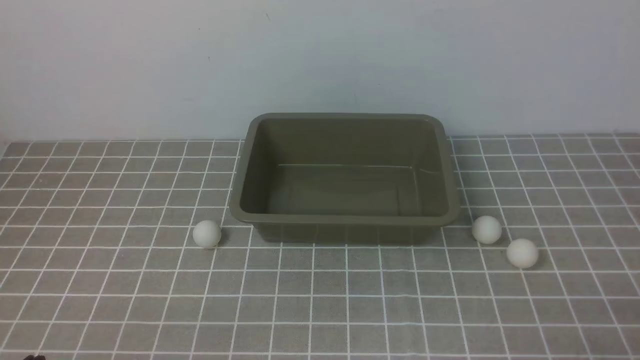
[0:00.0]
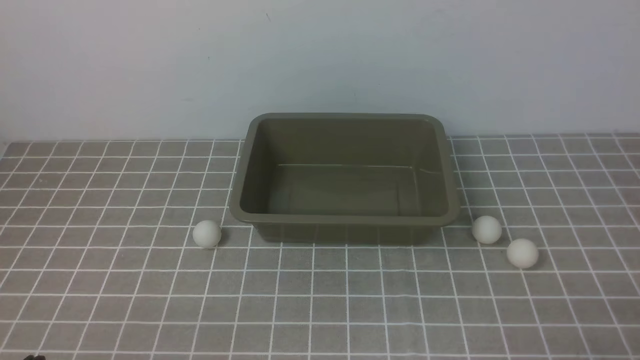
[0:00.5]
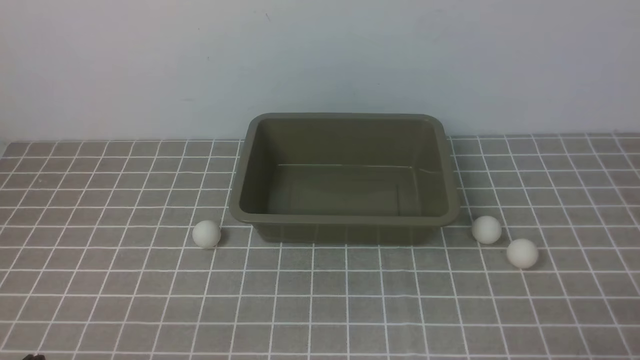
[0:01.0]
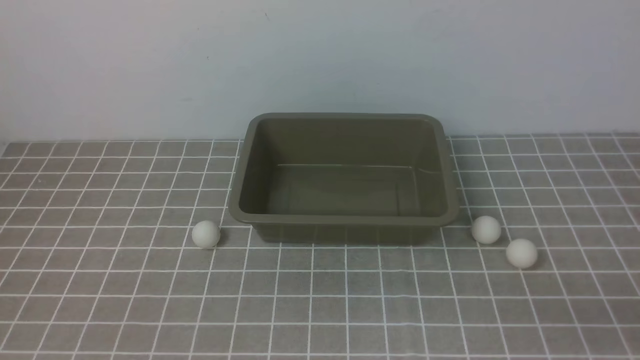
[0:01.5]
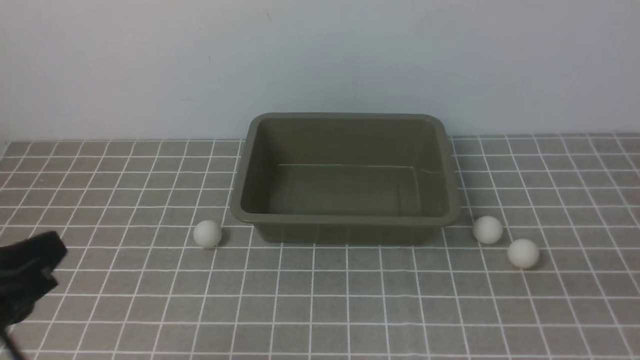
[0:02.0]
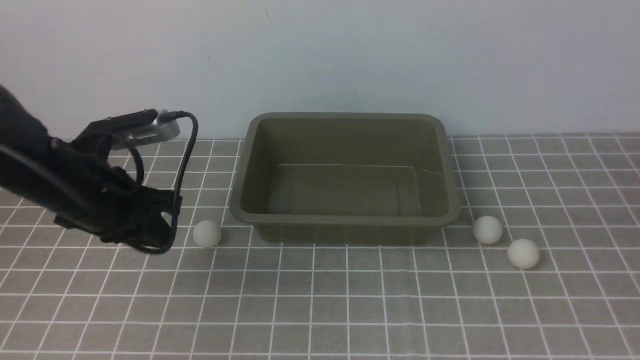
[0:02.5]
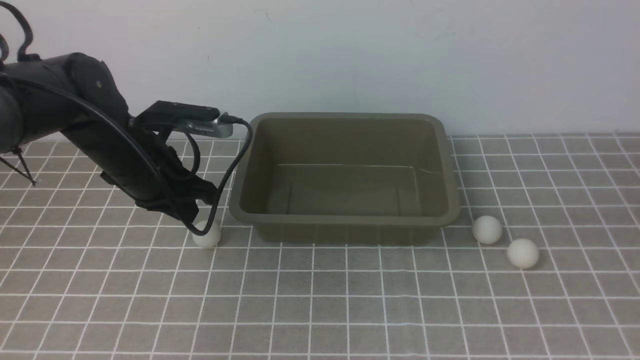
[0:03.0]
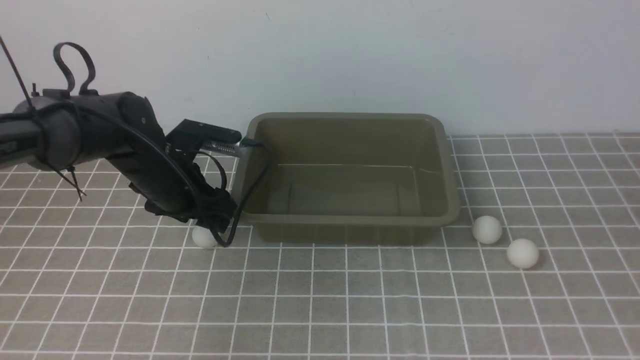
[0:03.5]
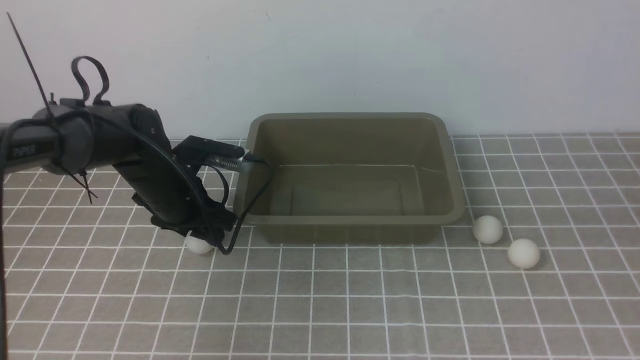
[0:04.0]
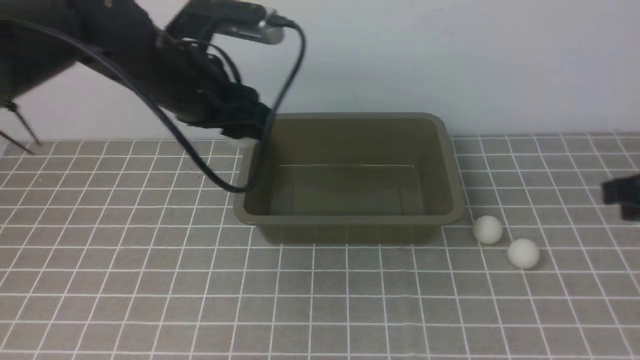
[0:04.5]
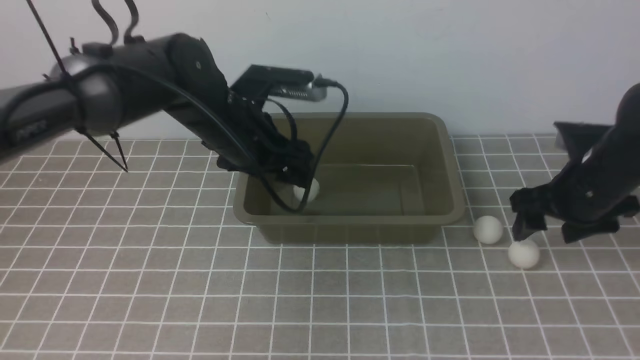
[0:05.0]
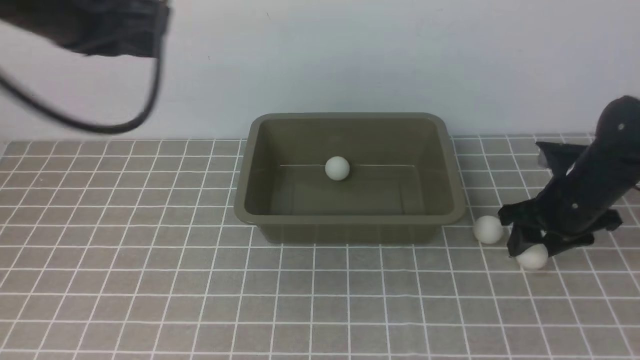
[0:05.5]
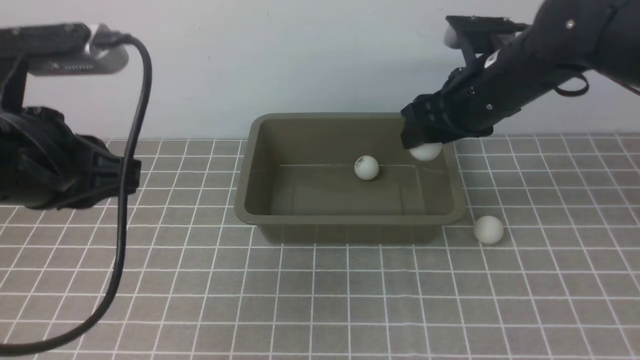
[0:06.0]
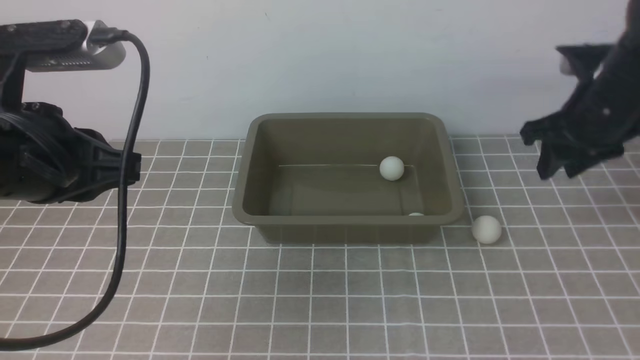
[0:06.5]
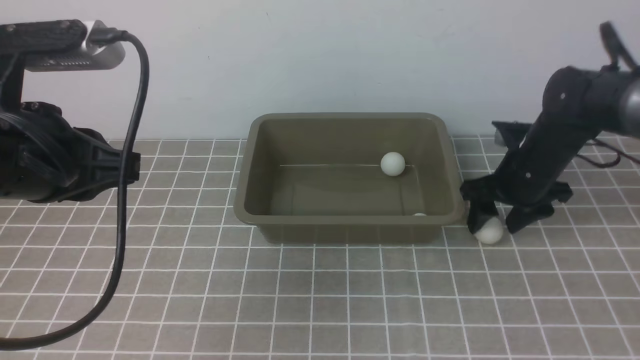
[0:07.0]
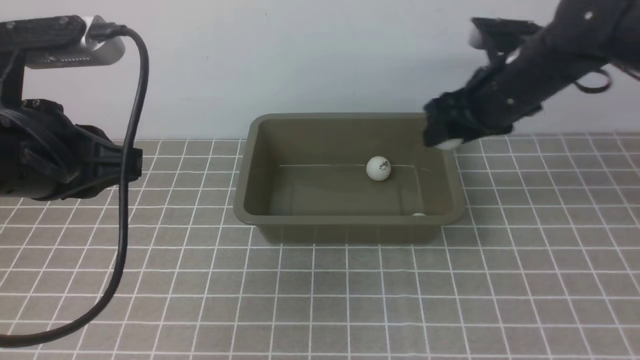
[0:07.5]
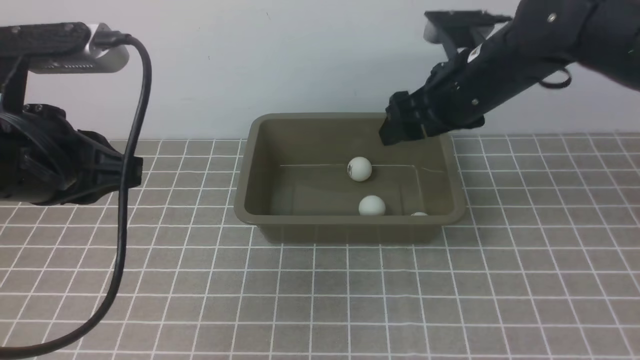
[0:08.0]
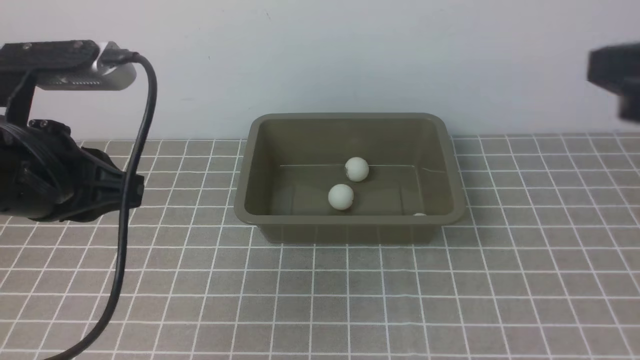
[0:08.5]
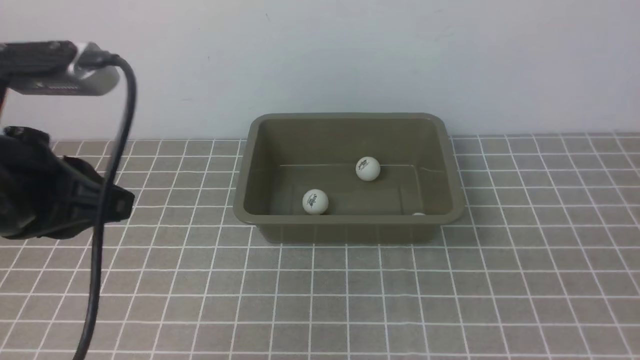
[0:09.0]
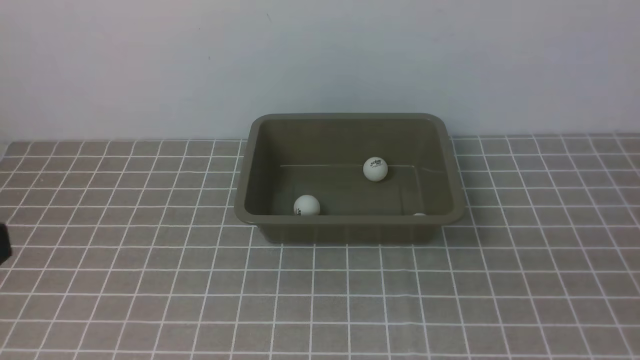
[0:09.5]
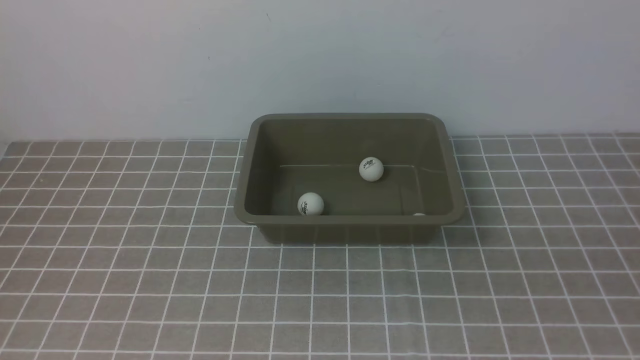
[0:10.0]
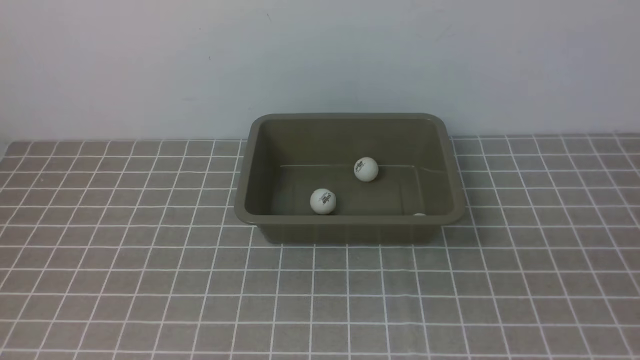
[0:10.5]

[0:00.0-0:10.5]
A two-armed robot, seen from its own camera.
Step, 0:00.0 to 0:04.0: use the left arm to clamp the table tennis ball closest to it.
Step, 0:04.5 to 0:05.0: use the left arm to put the table tennis ball into the box.
Step, 0:06.5 to 0:07.0: use the right arm to clamp the table tennis ball closest to it.
Step, 0:07.5 to 0:08.0: use the right arm to put the table tennis ball into the box.
0:02.0 to 0:04.0: The right gripper heads upward and forward, covering approximately 10 cm, while the left gripper goes roughly 30 cm forward, and opens its fingers.
0:04.0 to 0:06.5: The right gripper shifts about 25 cm forward, and opens up. Meanwhile the left gripper is displaced upward and backward by roughly 25 cm, and closes up.
0:06.5 to 0:08.5: The right gripper heads backward and upward, covering approximately 25 cm, and closes.
0:08.5 to 0:10.5: The left gripper shifts about 20 cm backward, while the right gripper moves backward and downward, some 20 cm.

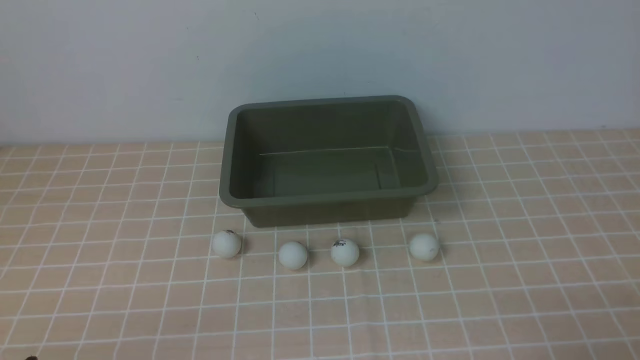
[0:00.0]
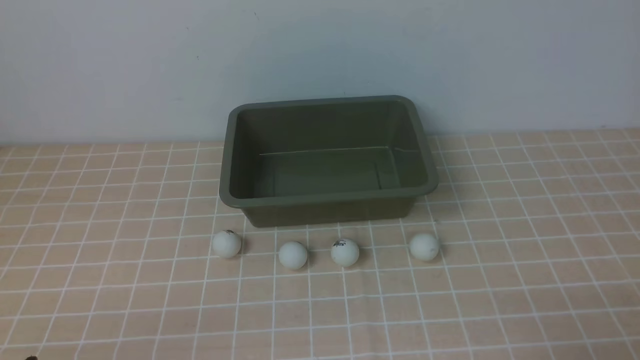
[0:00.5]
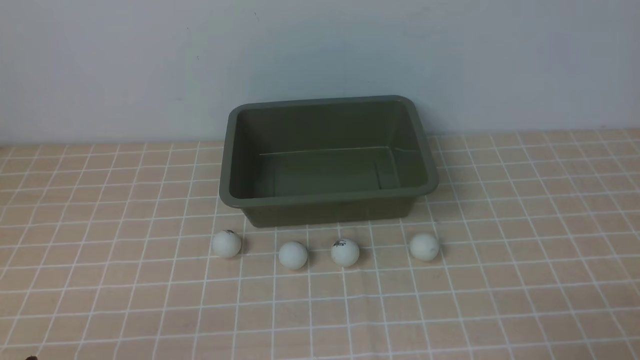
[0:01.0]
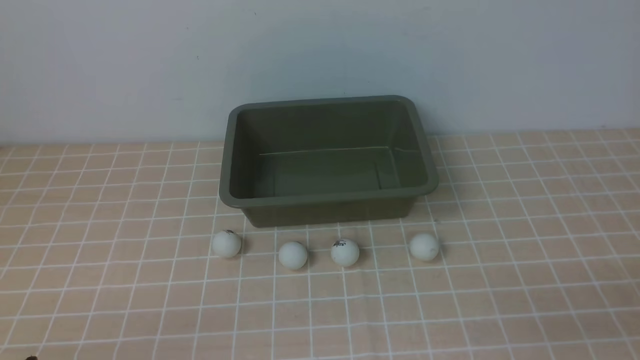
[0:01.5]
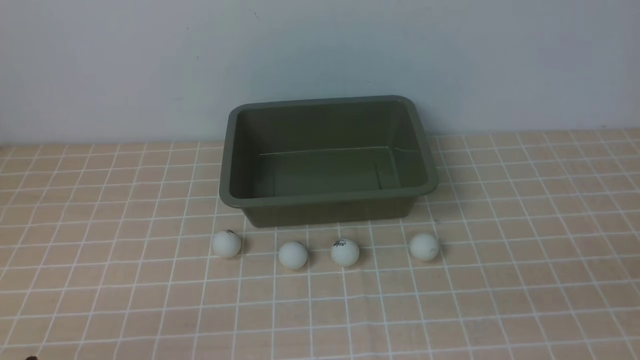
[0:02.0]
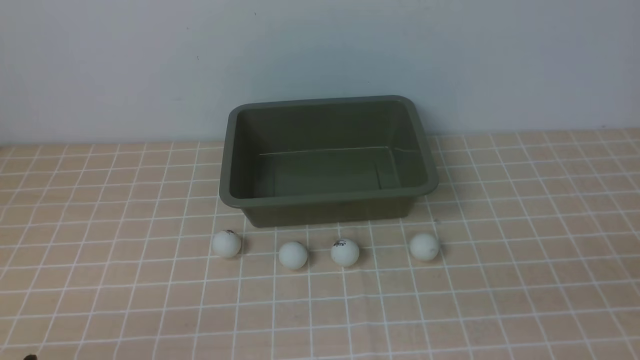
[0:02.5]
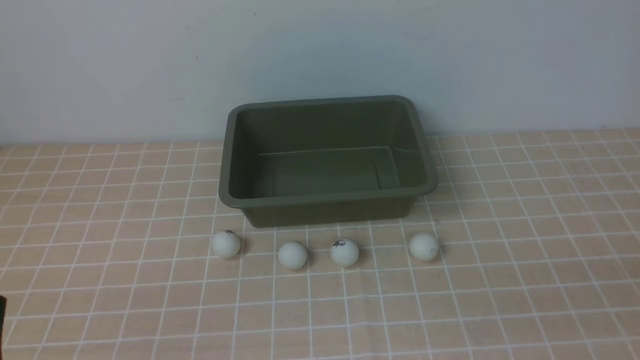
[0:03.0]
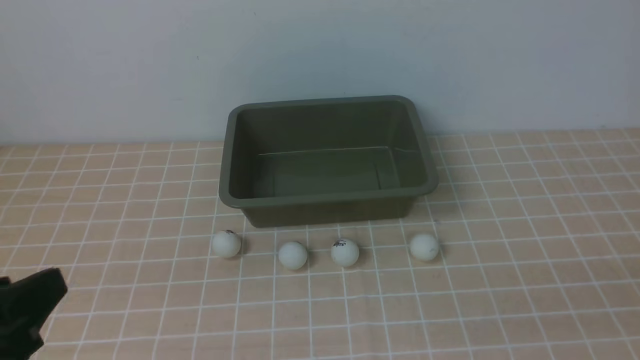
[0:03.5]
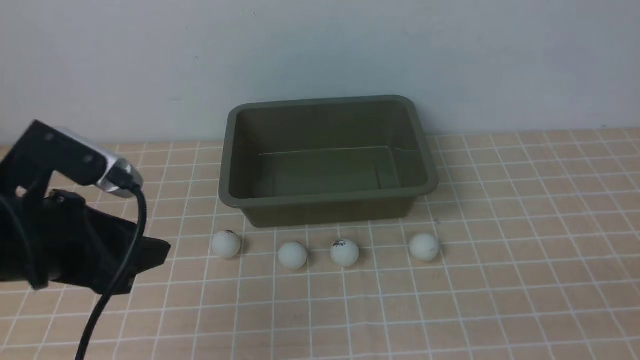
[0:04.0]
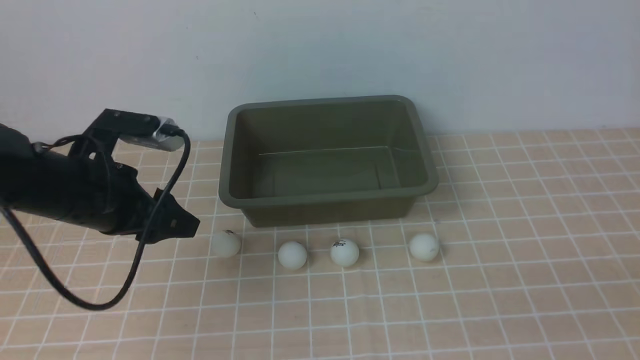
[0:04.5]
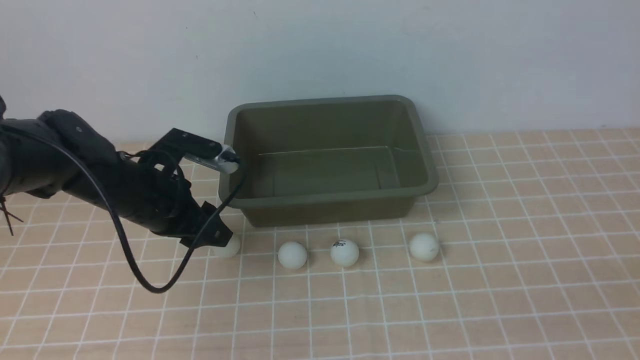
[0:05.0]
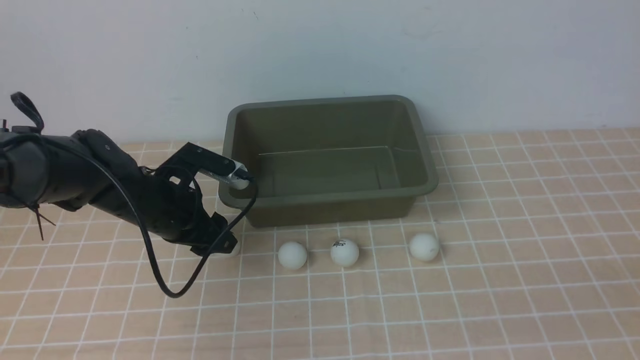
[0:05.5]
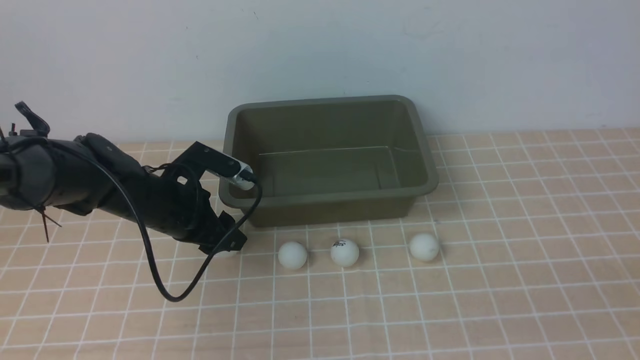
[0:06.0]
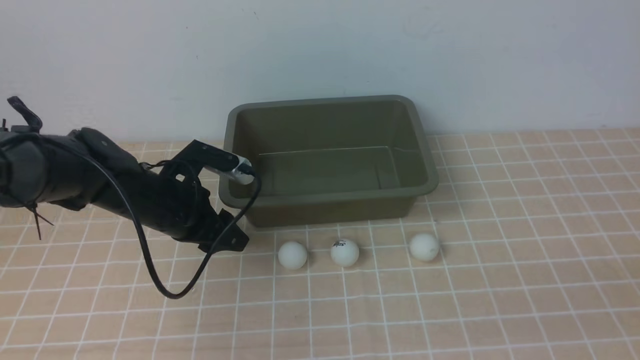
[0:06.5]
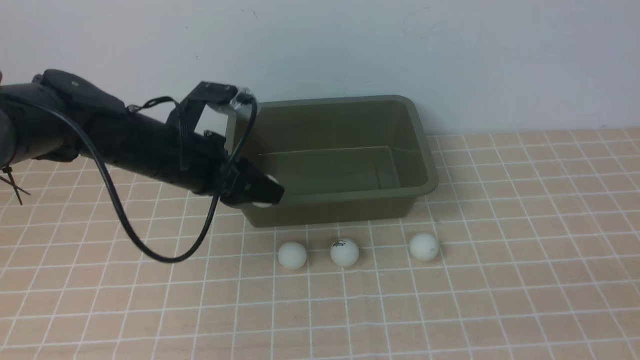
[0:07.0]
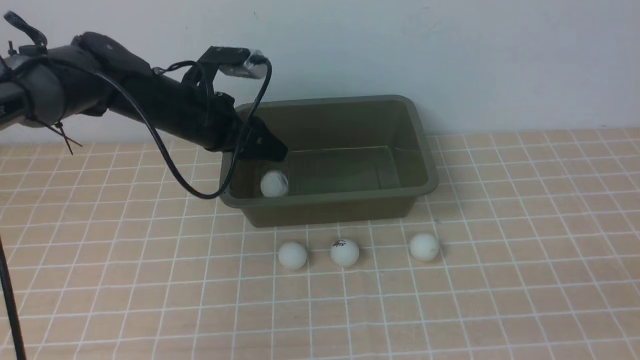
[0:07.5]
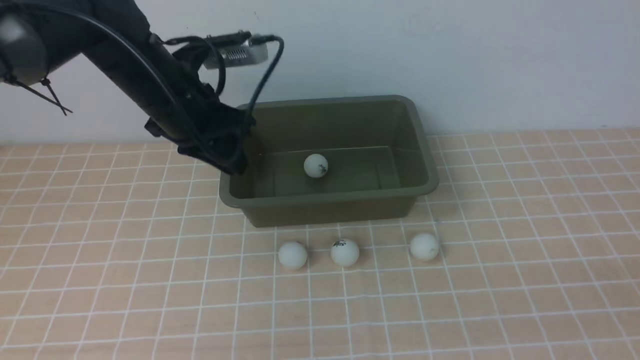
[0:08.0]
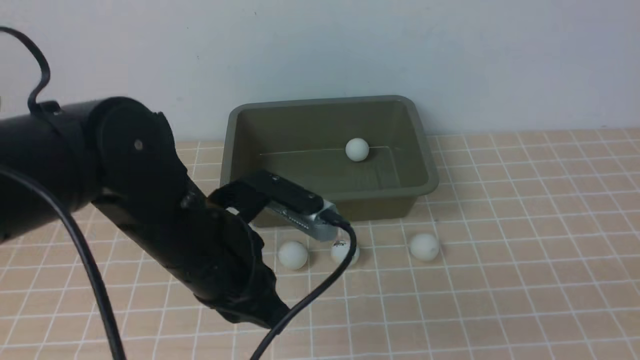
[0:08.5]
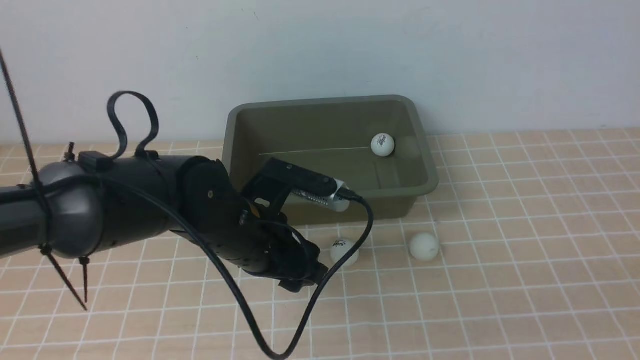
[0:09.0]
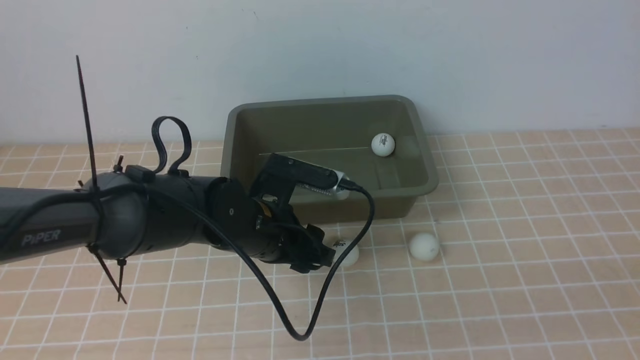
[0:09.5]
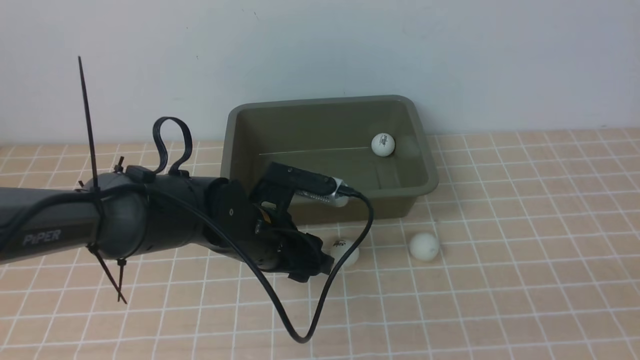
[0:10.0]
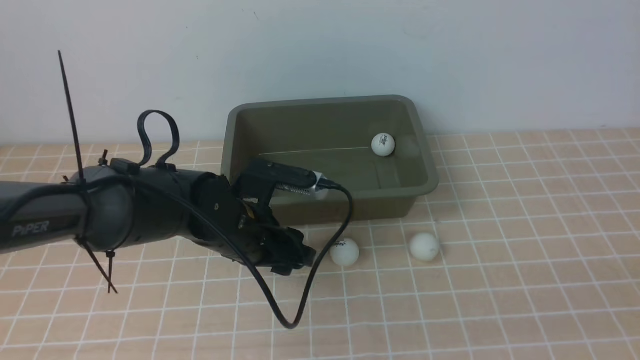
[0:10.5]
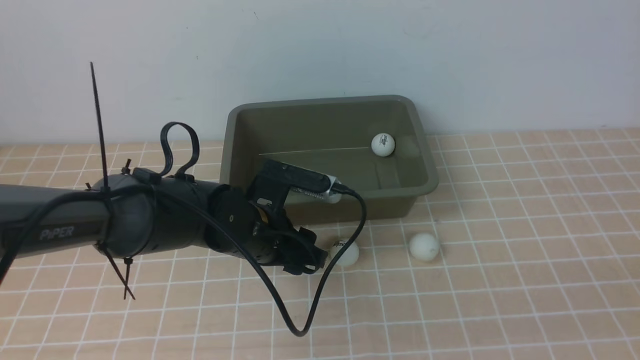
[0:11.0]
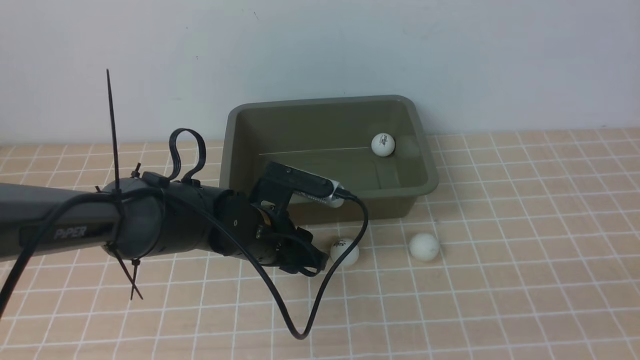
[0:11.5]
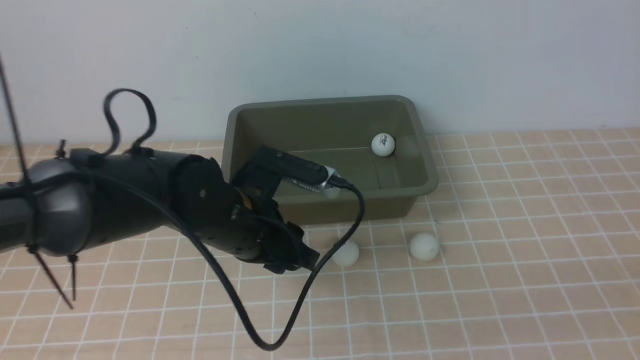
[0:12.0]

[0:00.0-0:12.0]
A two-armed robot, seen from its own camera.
Step, 0:00.0 to 0:06.5: use the left arm to clamp the table tennis ball closest to it.
Step, 0:08.0 to 0:12.0: use the left arm to clamp the table tennis ball closest to it.
0:02.0 to 0:04.0: The left gripper travels forward and upward by about 20 cm.
0:04.0 to 0:06.0: The left gripper moves forward and downward, approximately 20 cm.
0:06.0 to 0:08.0: The left gripper goes roughly 15 cm upward, and closes its fingers.
0:08.0 to 0:10.0: The left gripper heads downward, to the right and backward, covering some 15 cm, and opens.
0:10.0 to 0:12.0: The left gripper ends up approximately 5 cm from where it was.
